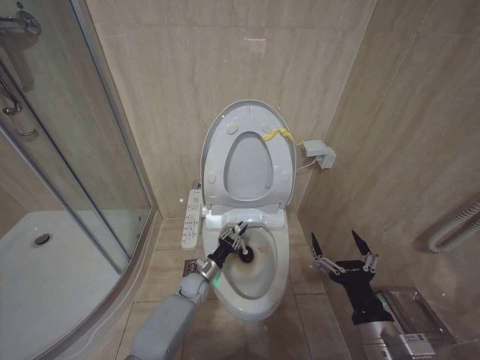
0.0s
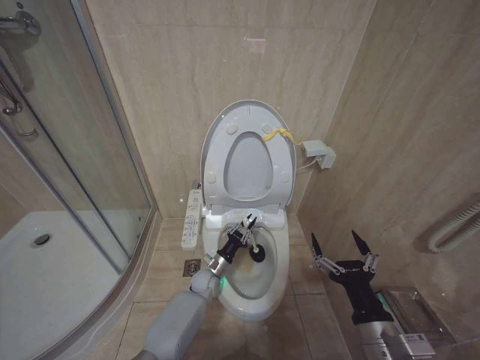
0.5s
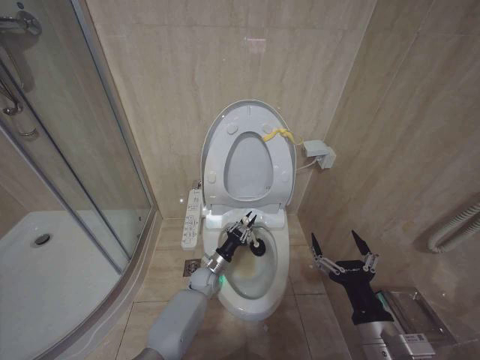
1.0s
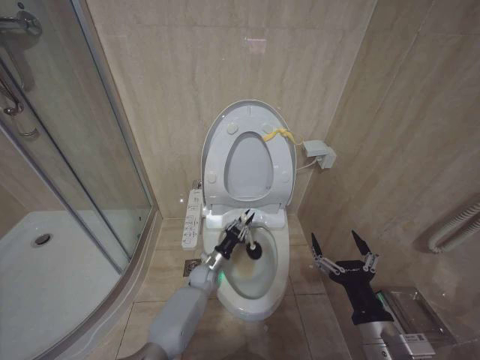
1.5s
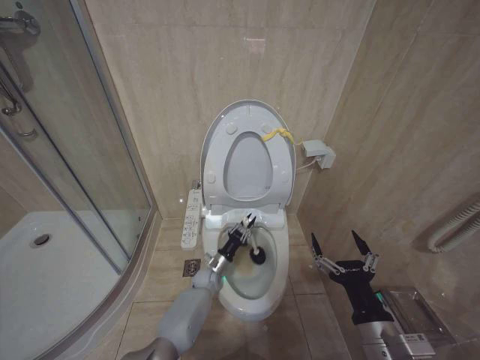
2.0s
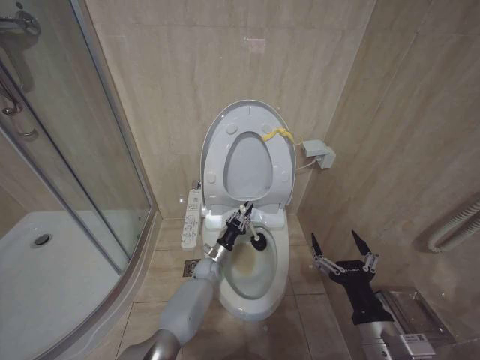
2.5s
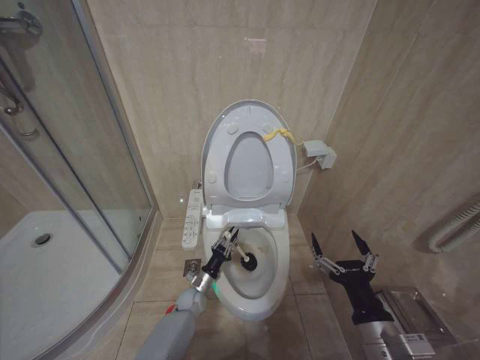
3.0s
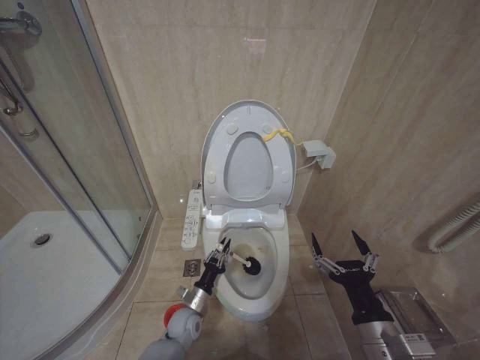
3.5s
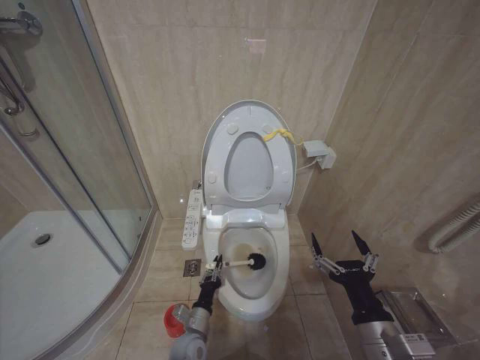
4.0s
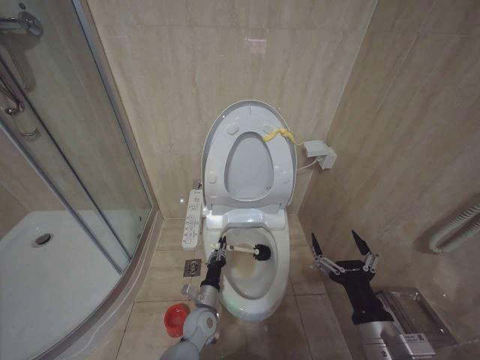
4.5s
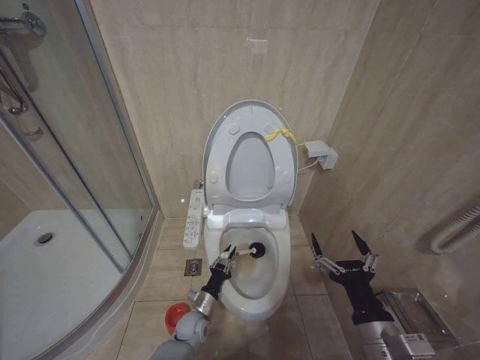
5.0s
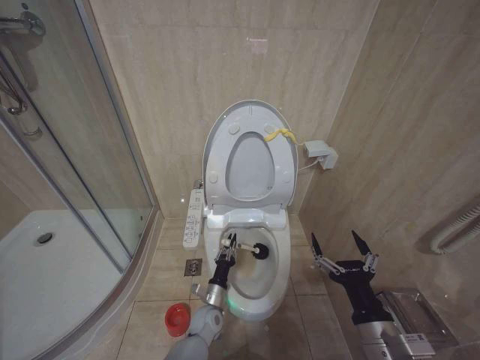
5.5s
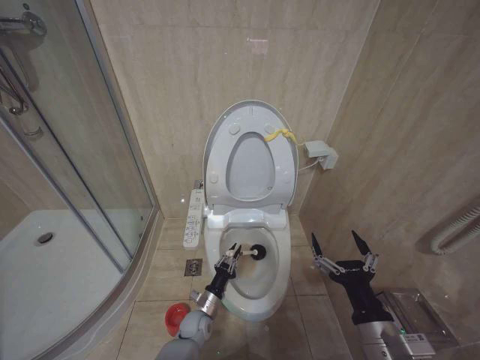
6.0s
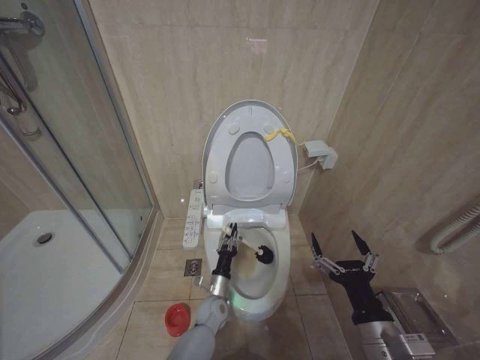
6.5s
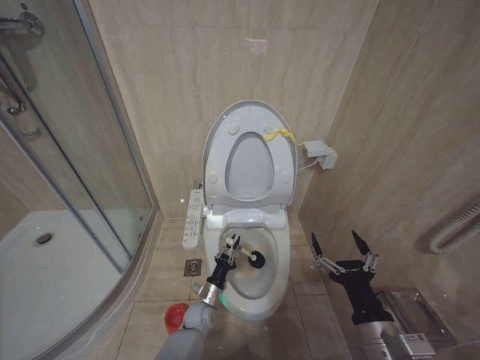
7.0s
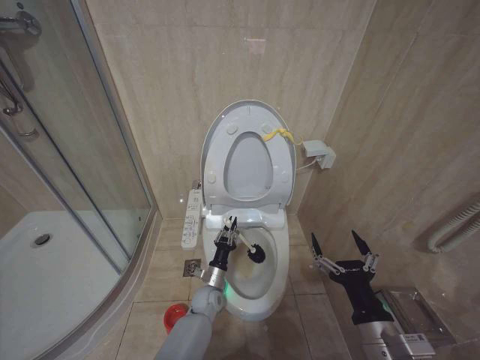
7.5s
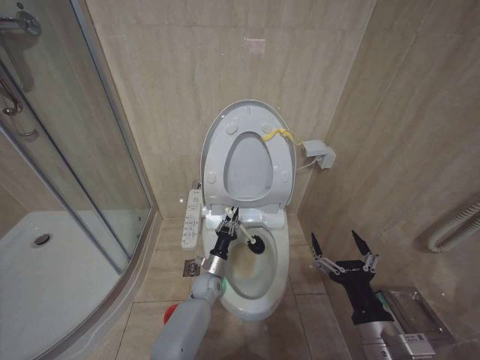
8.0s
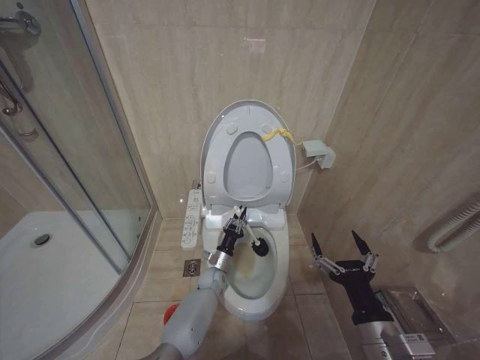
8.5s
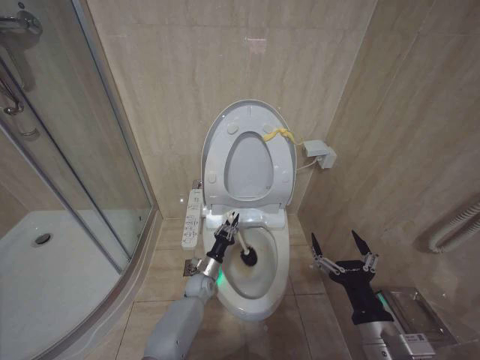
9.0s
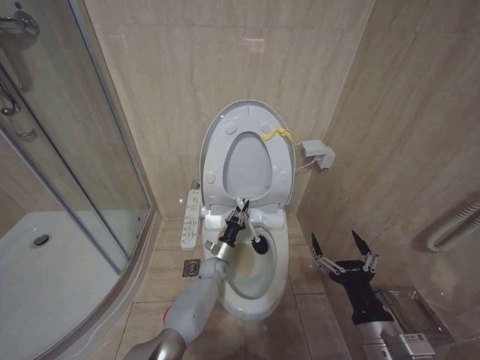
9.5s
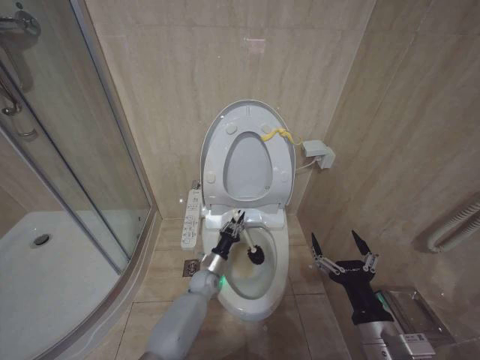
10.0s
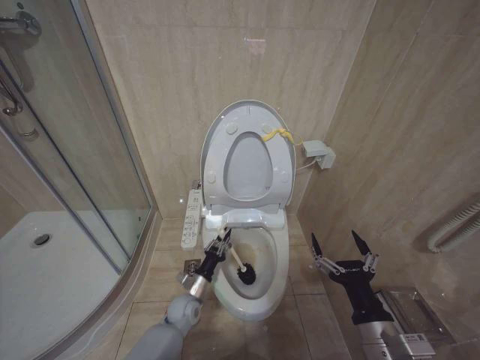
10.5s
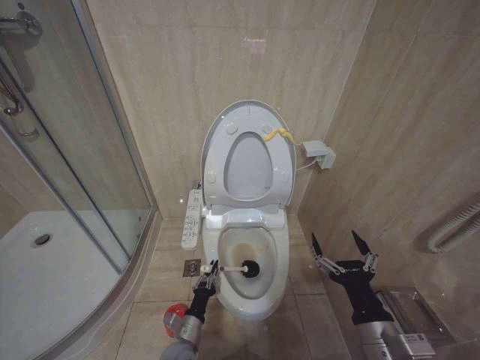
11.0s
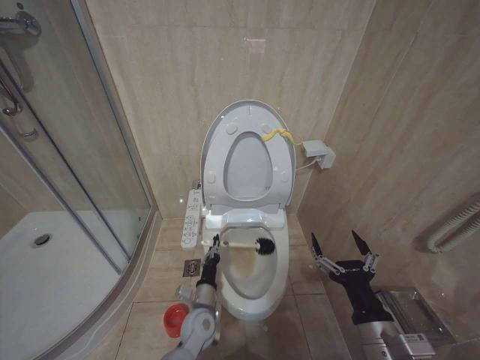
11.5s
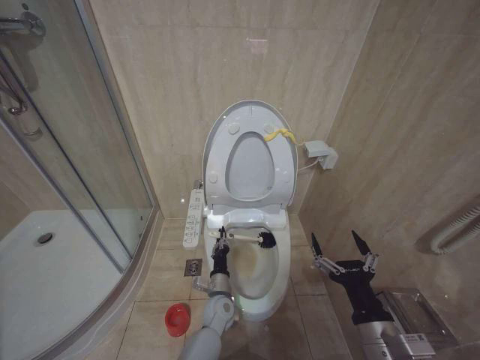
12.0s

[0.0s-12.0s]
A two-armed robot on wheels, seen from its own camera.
Task of the whole recording: Open the toilet lid, clean the toilet bowl with a toilet brush, close the toilet lid, and flush.
0.0s to 2.0s: The left gripper ends up approximately 5 cm from where it was.
2.0s to 4.0s: The left gripper travels backward by some 20 cm.
4.0s to 6.0s: The left gripper goes about 5 cm forward.
6.0s to 8.0s: The left gripper shifts about 10 cm forward and upward.
10.0s to 12.0s: The left gripper travels backward by roughly 10 cm.

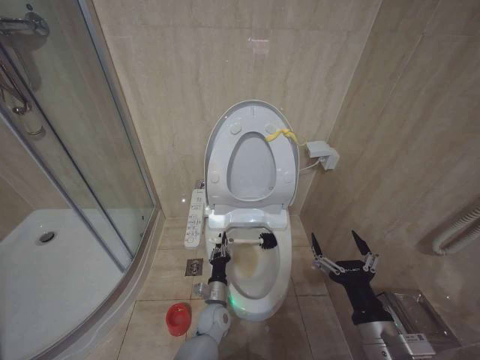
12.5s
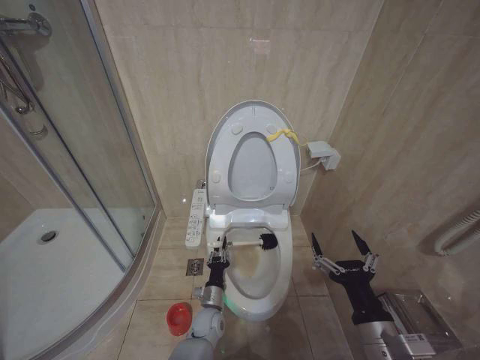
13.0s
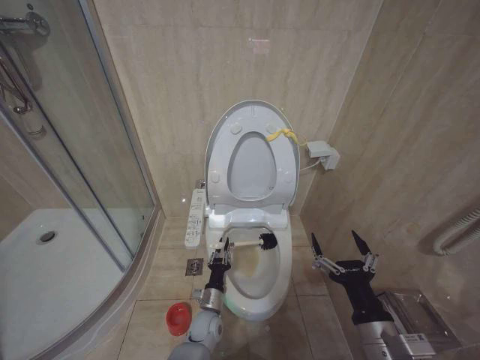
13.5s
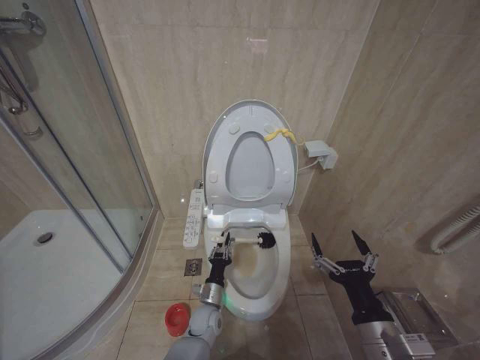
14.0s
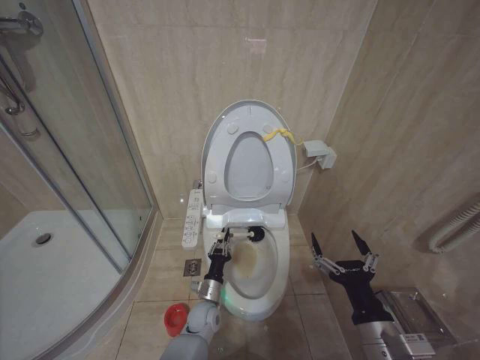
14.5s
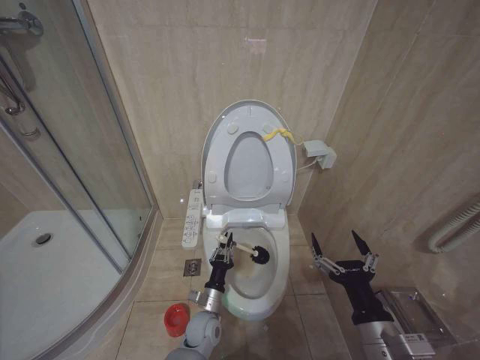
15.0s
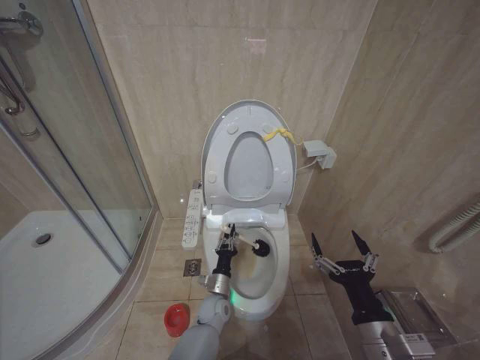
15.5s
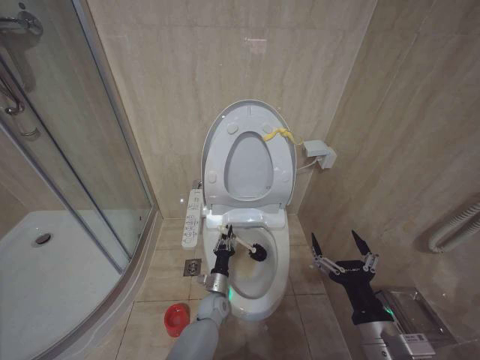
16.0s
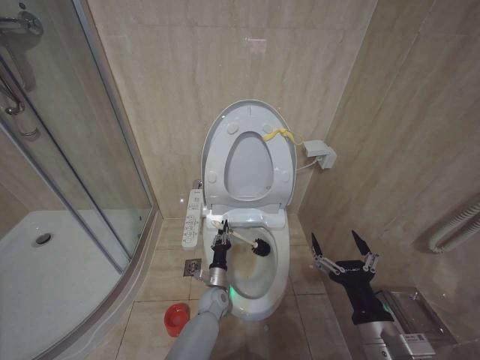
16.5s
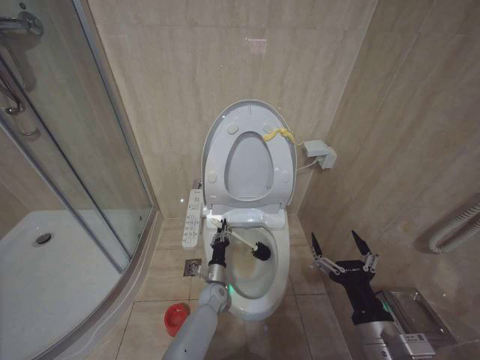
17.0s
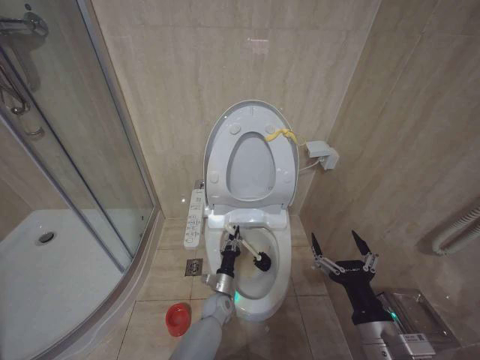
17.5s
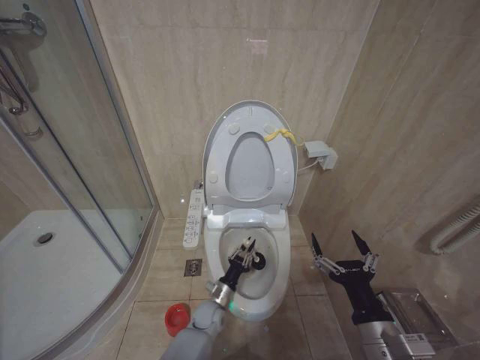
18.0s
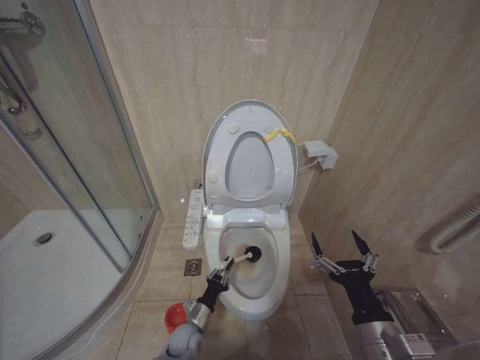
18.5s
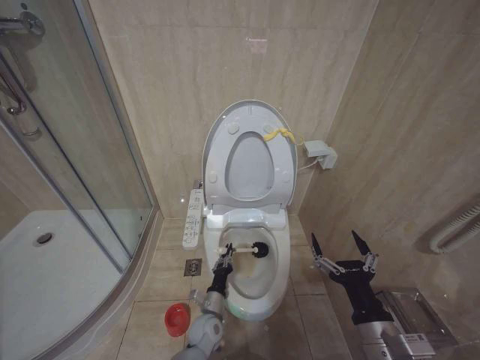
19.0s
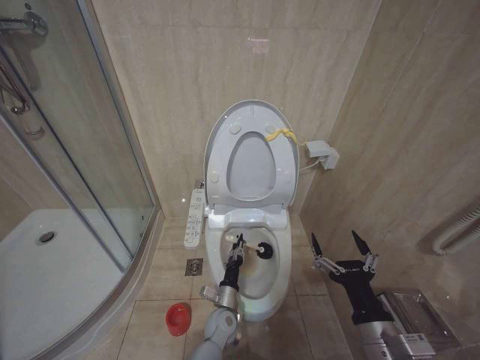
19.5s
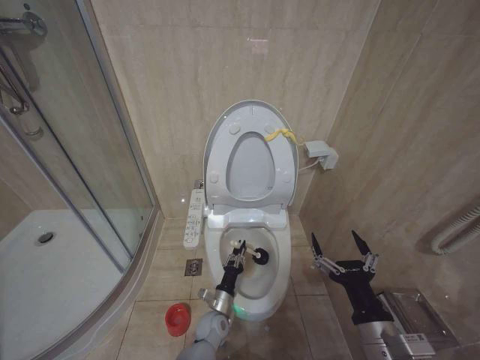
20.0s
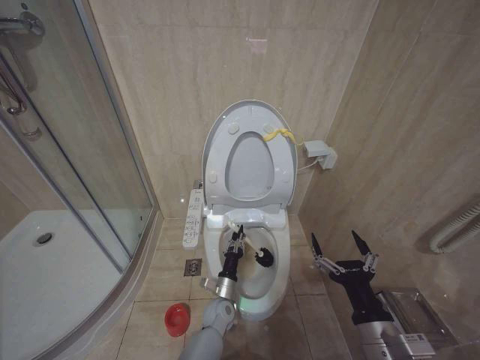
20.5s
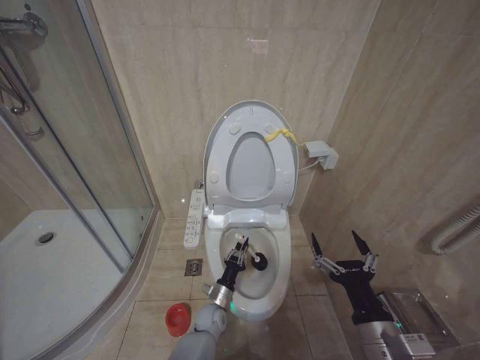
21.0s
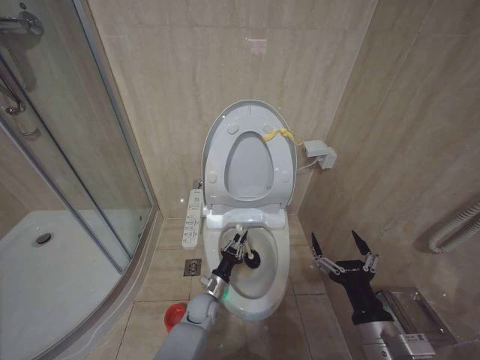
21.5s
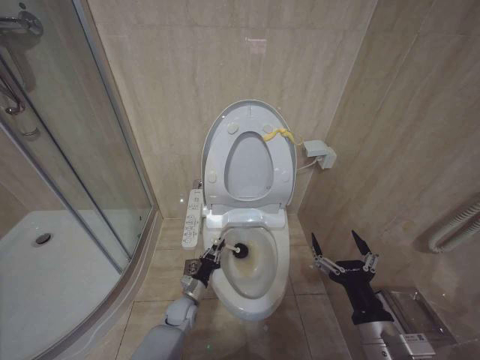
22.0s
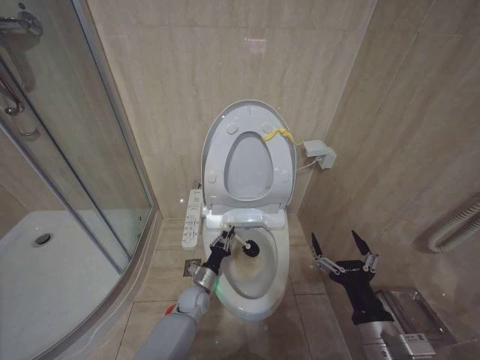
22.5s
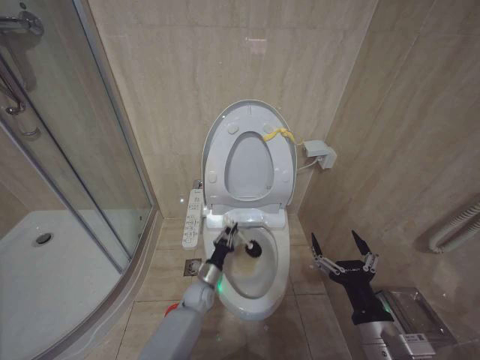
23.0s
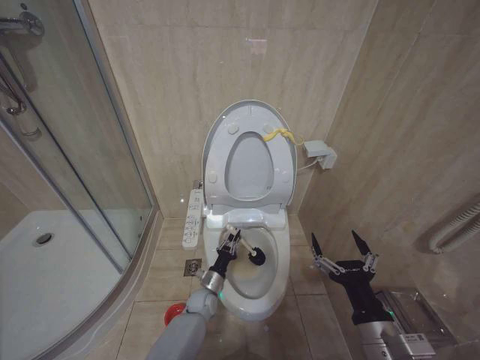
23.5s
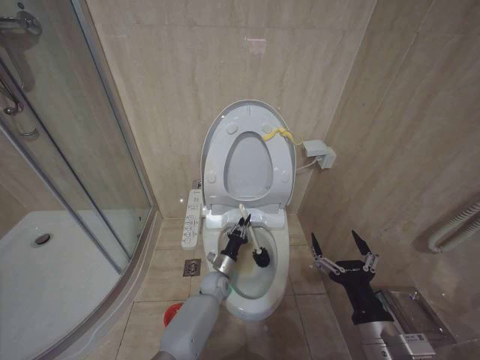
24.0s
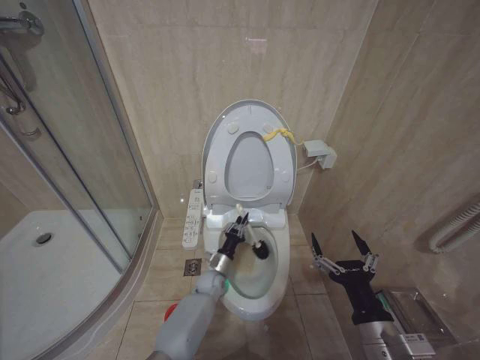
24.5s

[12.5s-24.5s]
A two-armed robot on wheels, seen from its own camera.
Task of the whole recording: Open the toilet lid, clean the toilet bowl with a toilet brush, close the toilet lid, and flush.
14.5s to 16.5s: The left gripper goes some 5 cm forward.
16.5s to 18.5s: The left gripper heads to the left and backward, covering some 10 cm.
18.5s to 20.5s: The left gripper moves to the right, approximately 10 cm.
20.5s to 22.5s: The left gripper heads to the left, covering some 10 cm.
22.5s to 24.5s: The left gripper changes place by approximately 5 cm.

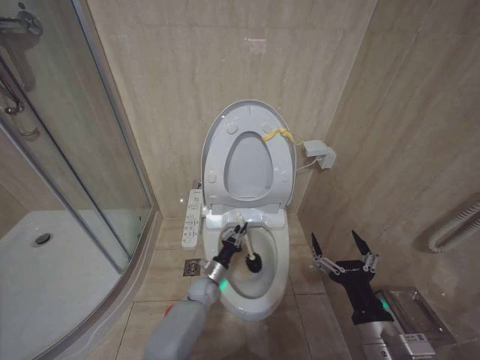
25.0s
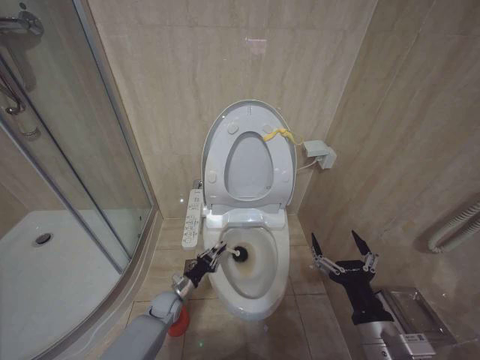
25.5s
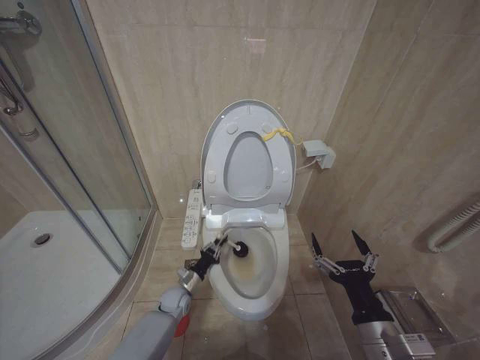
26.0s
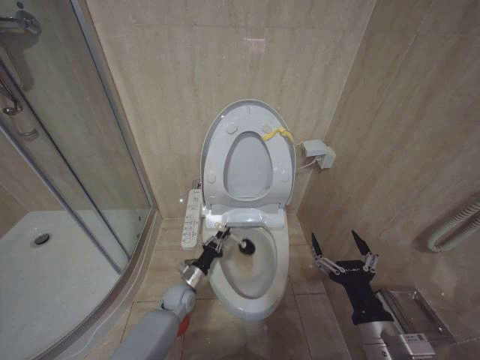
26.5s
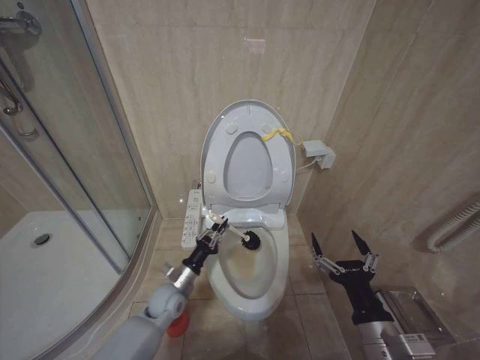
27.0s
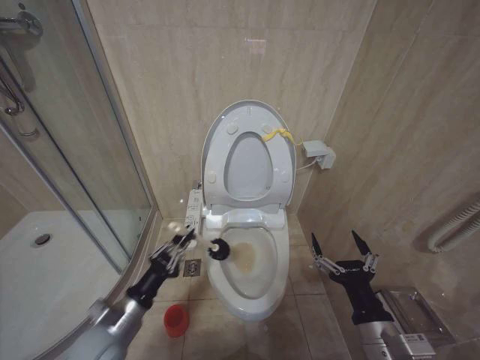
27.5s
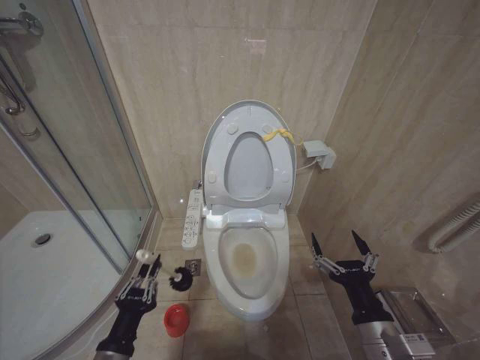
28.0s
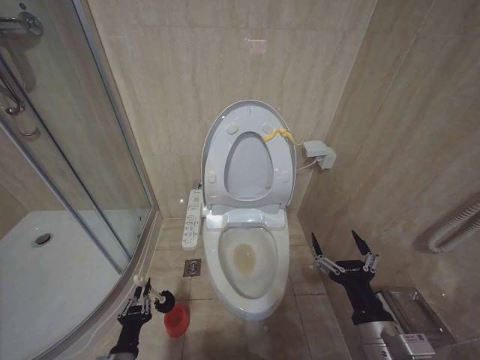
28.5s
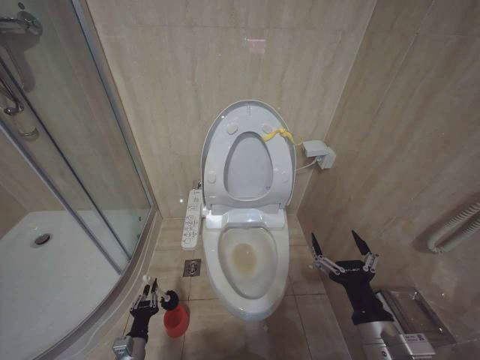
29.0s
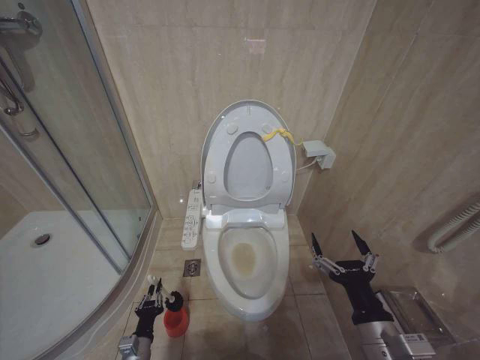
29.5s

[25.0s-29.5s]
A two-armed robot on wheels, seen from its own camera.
Task of the whole recording: Open the toilet lid, clean the toilet bowl with a toilet brush, close the toilet lid, and flush.
25.0s to 27.0s: The left gripper shifts about 15 cm to the left, upward and backward.
27.0s to 29.5s: The left gripper goes roughly 20 cm backward, downward and to the left.
